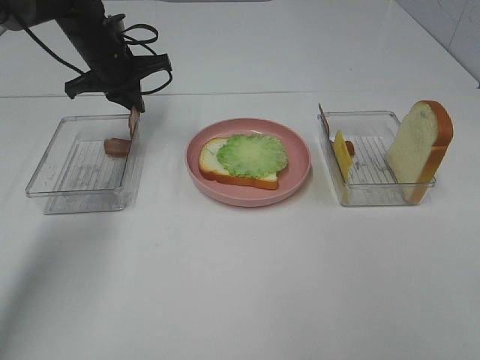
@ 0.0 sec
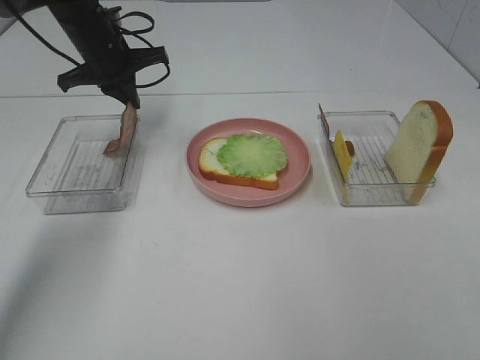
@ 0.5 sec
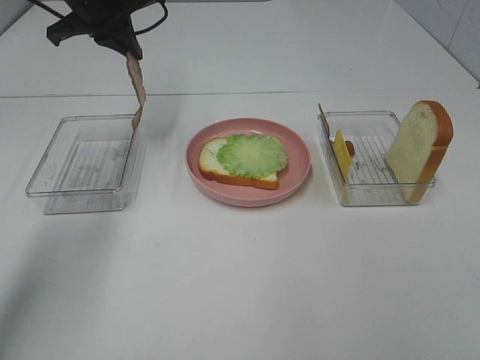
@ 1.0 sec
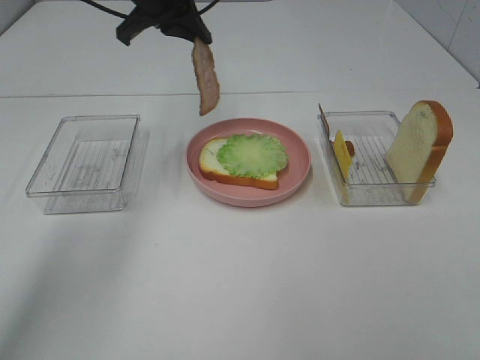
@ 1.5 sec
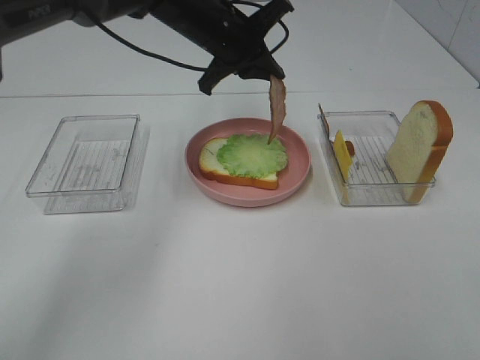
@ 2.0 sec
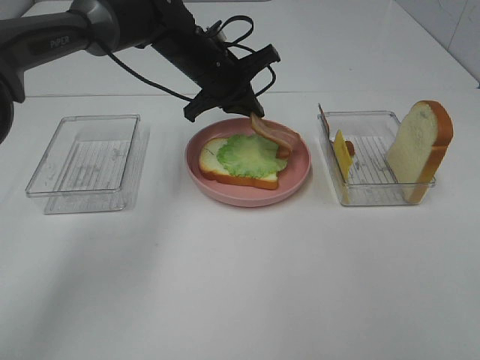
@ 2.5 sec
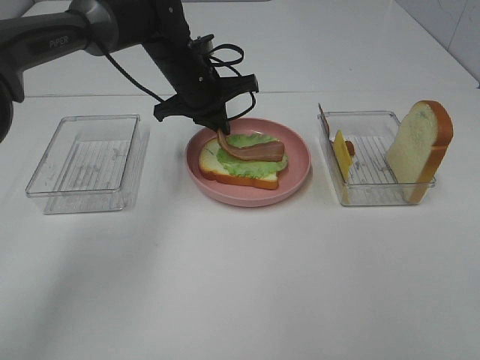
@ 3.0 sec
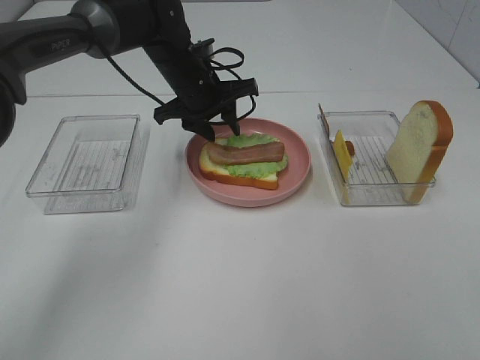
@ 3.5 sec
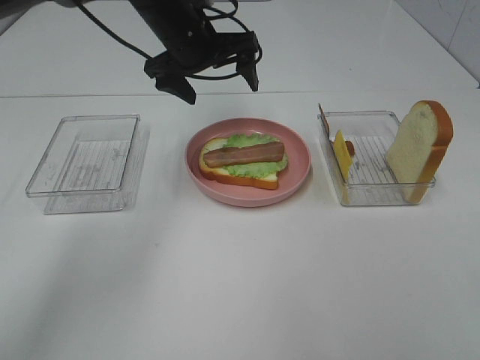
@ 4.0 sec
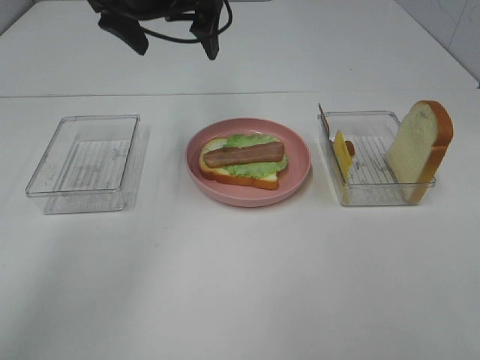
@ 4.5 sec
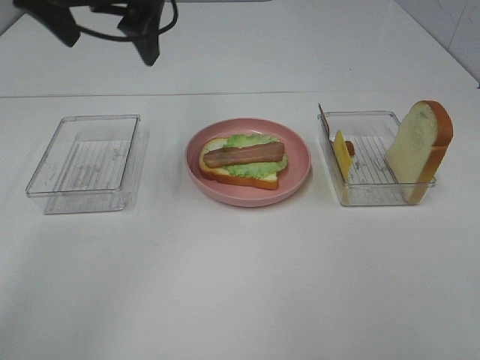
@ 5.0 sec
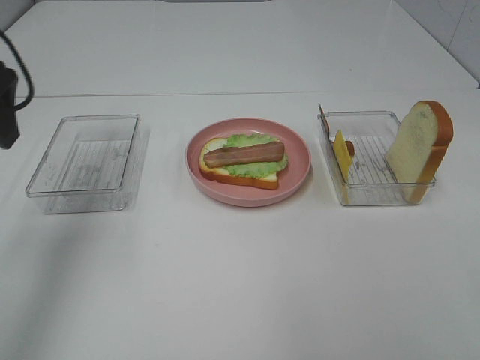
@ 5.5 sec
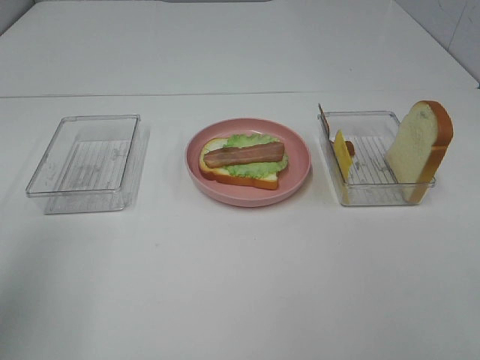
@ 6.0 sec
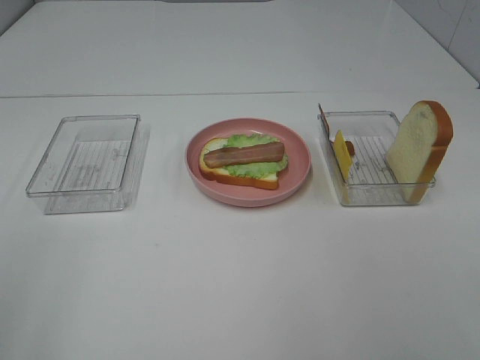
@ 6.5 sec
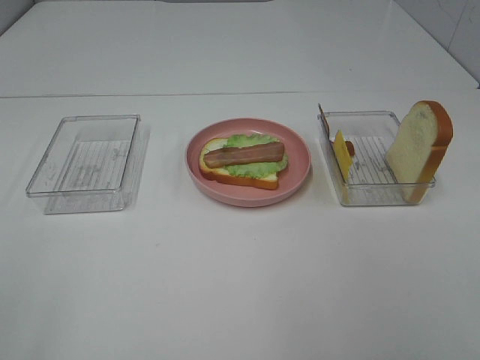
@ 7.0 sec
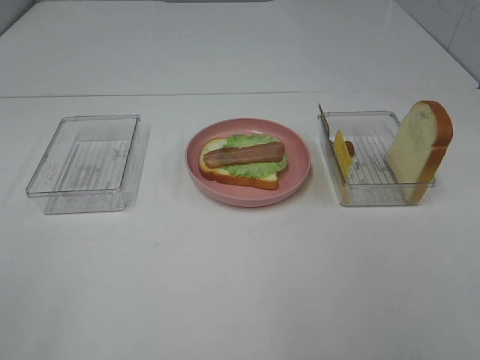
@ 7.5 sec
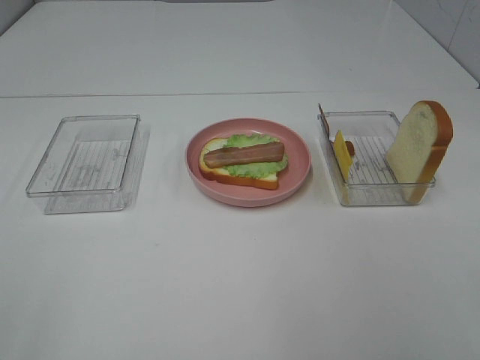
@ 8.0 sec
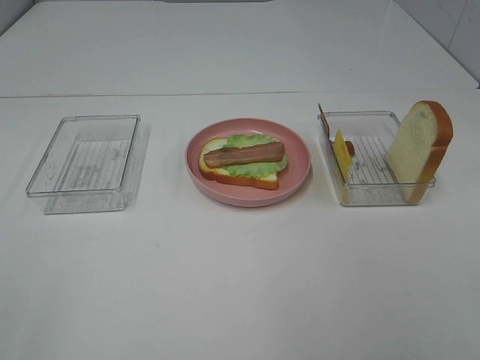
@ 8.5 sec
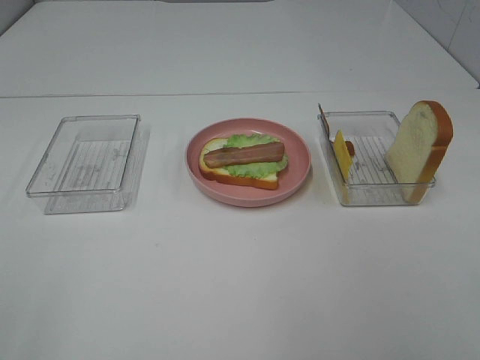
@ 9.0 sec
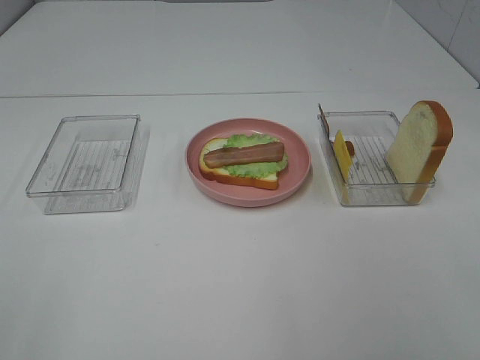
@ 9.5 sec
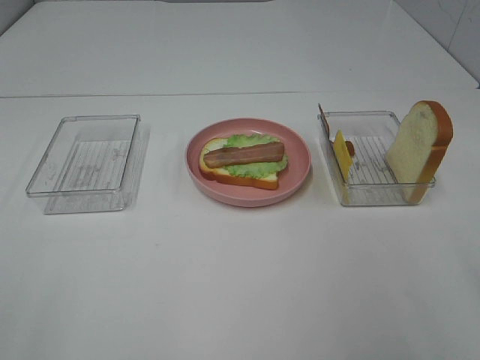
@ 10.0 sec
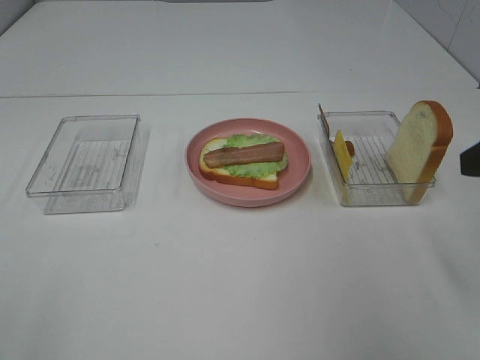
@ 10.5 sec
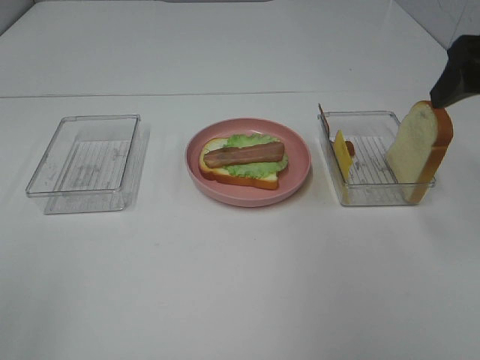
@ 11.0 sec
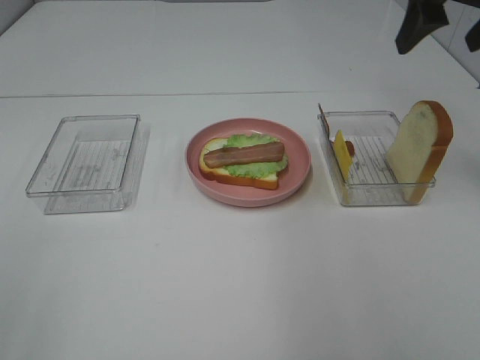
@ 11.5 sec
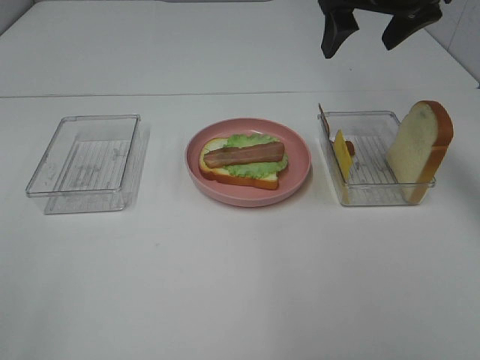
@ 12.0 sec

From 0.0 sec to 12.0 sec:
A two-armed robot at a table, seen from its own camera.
Task of the whole recording: Make sandwiches.
Step, from 0.5 sec to 3.5 sec: Left hand:place bacon on lettuce slice.
From 0.0 sec to 2.0 sec: The left gripper is displaced to the right by roughly 15 cm.
From 2.0 sec to 4.0 sec: The left gripper goes downward and returns, roughly 5 cm each way, and opens its fingers.
From 4.0 sec to 6.0 sec: The left gripper is displaced backward and to the left by approximately 40 cm.
From 10.0 sec to 12.0 sec: The right gripper is displaced forward by about 35 cm.

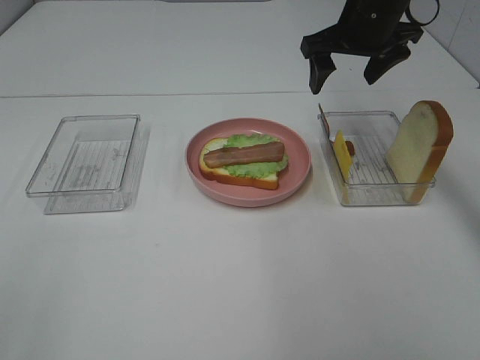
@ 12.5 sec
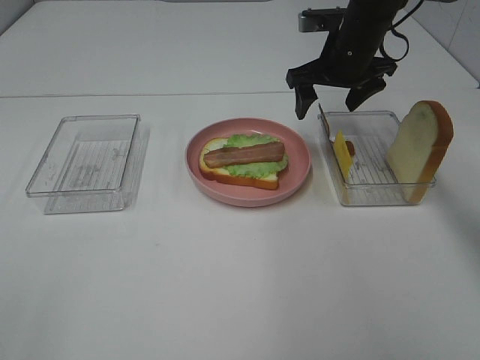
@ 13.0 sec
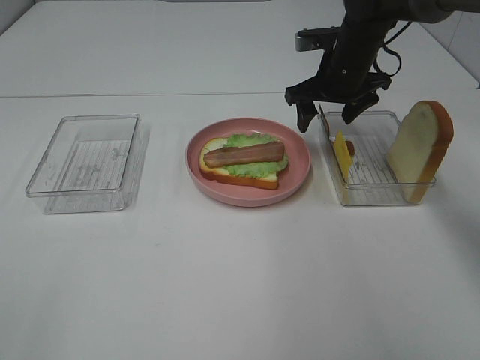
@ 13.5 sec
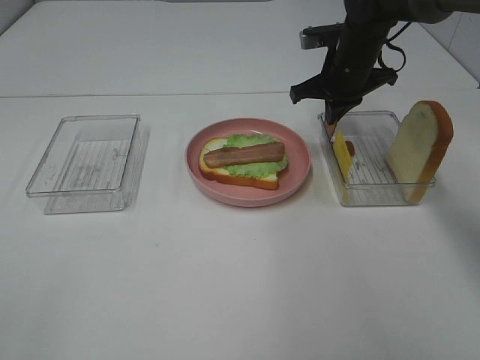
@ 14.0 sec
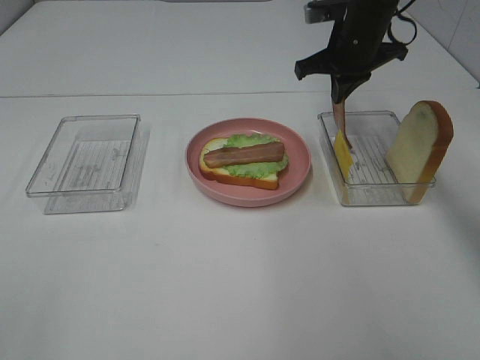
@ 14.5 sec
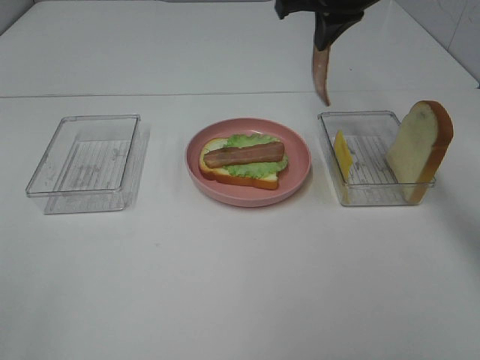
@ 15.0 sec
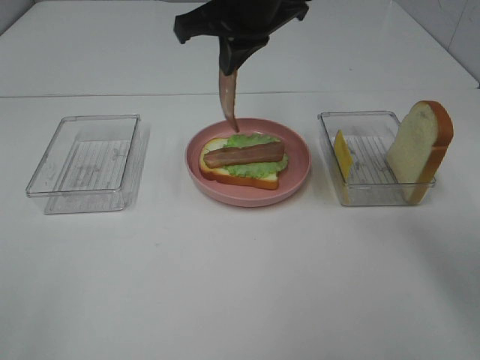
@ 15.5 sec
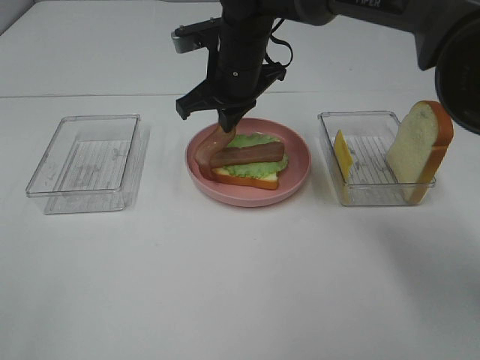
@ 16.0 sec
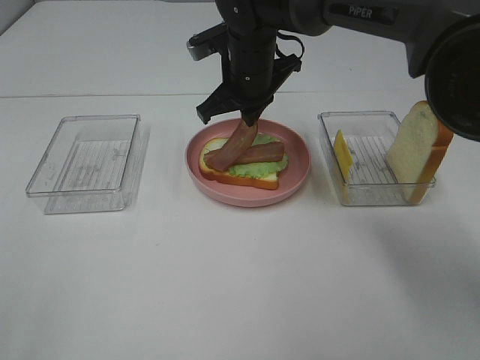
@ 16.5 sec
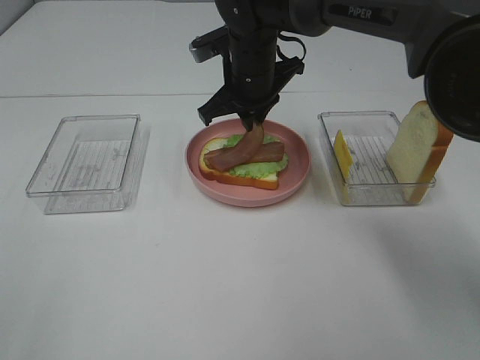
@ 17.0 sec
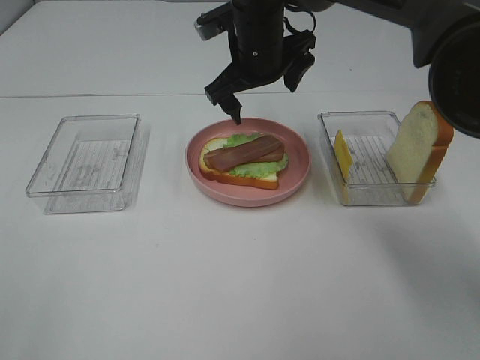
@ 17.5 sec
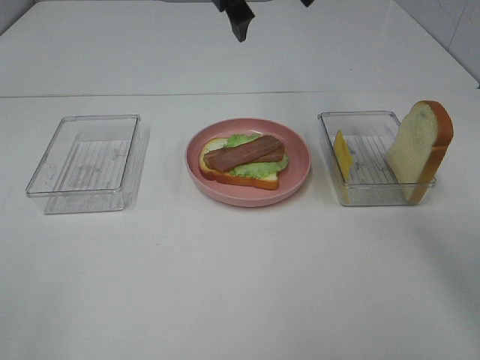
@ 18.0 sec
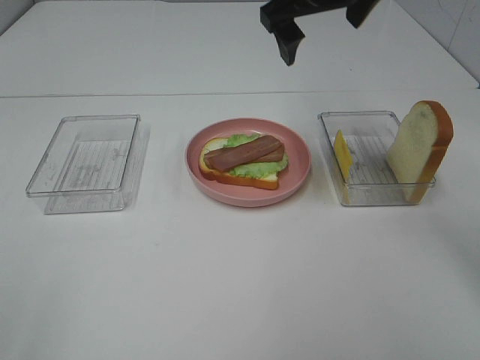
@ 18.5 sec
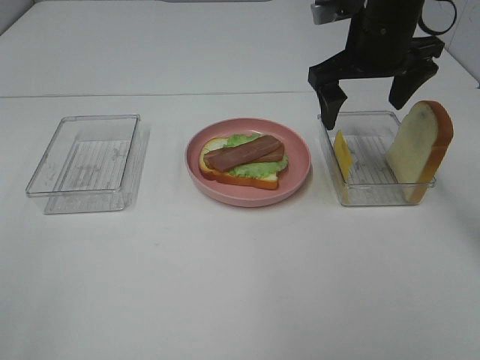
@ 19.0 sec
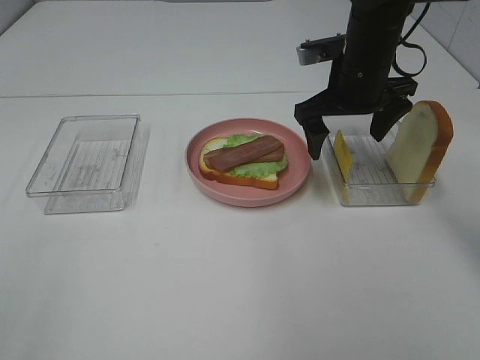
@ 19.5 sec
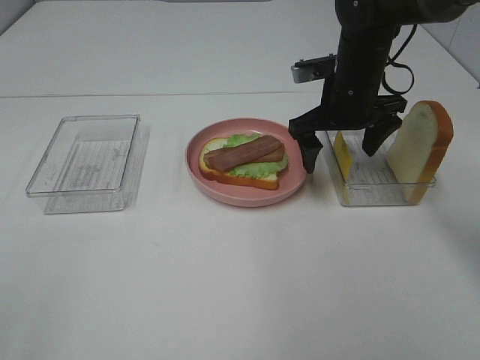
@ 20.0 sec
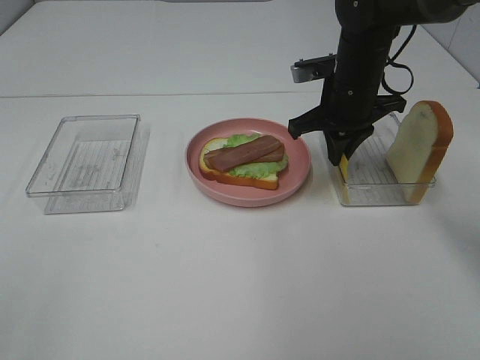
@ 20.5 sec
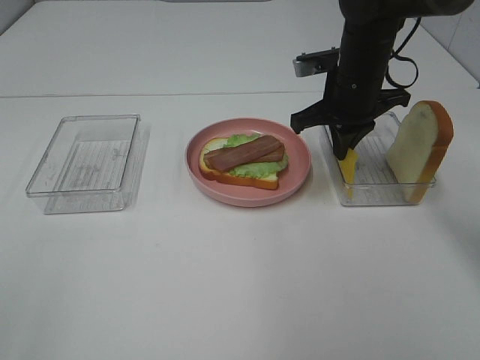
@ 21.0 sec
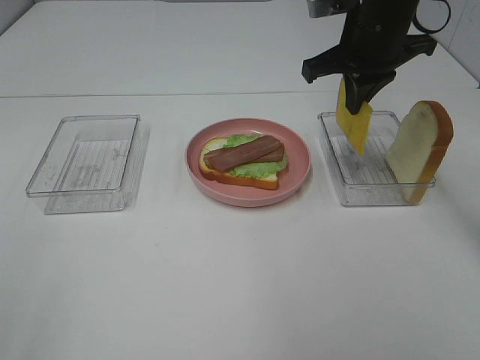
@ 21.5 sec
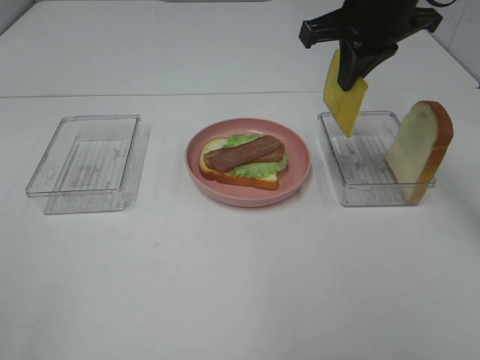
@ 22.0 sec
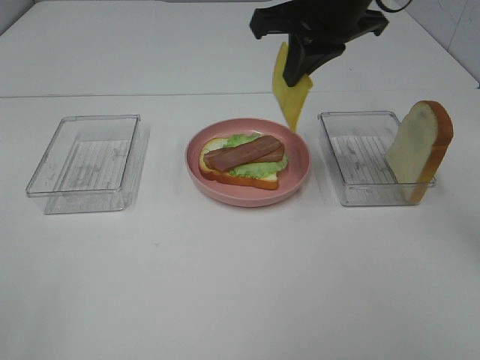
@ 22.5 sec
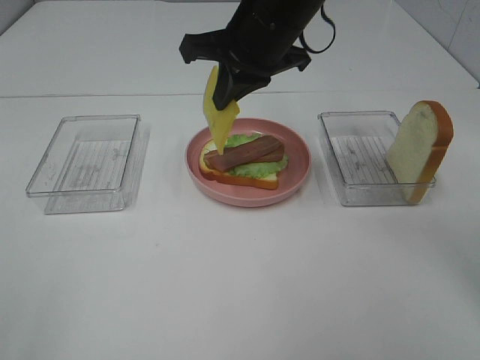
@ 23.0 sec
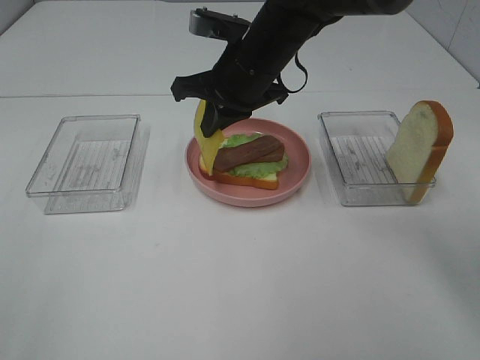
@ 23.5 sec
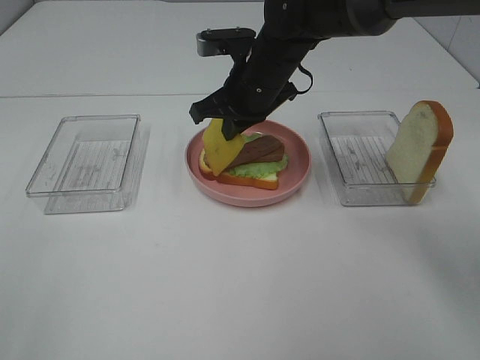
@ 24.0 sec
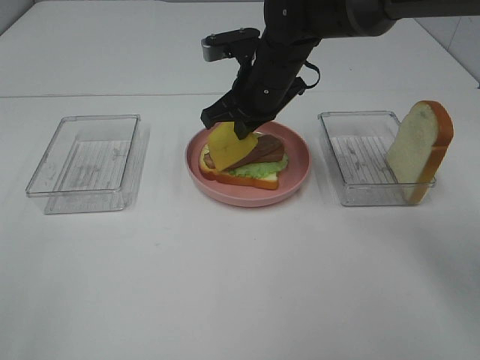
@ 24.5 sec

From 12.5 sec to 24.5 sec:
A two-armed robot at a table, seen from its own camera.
Task of the whole recording: Make sandwiches.
Step, from 14.5 sec to 17.0 sec: Right hand:place bacon on bacon.
Step, from 17.5 sec to 20.5 sec: Right hand:grab the cheese slice.
From 12.5 sec to 14.5 sec: The right gripper goes downward and returns, approximately 10 cm each way, and closes.
From 14.5 sec to 16.5 sec: The right gripper moves to the left, some 15 cm.
From 16.5 sec to 18.5 sec: The right gripper goes some 15 cm upward and to the right, and opens its fingers.
From 18.5 sec to 20.5 sec: The right gripper moves downward, about 15 cm, and closes its fingers.
From 20.5 sec to 22.5 sec: The right gripper heads upward, covering some 15 cm.
From 22.5 sec to 24.5 sec: The right gripper heads downward and to the left, covering about 15 cm.

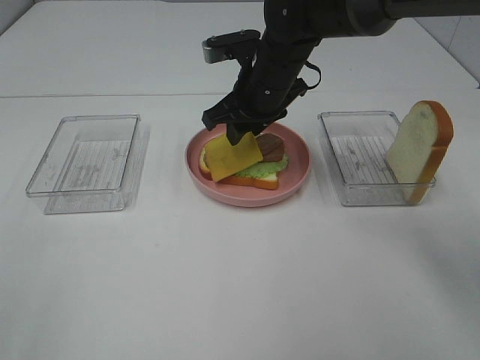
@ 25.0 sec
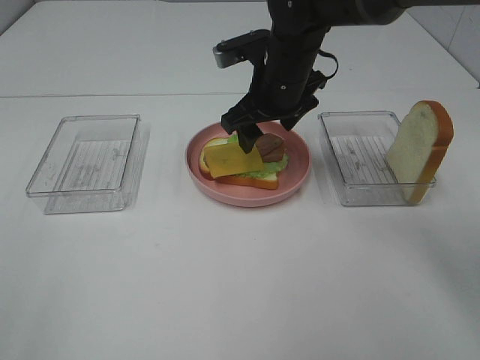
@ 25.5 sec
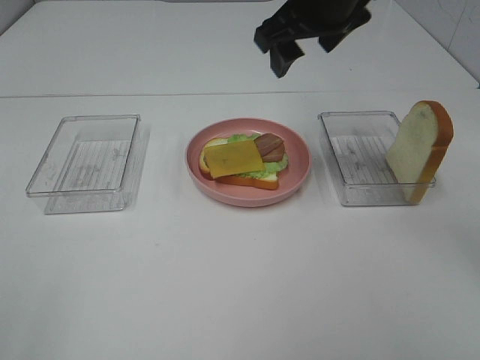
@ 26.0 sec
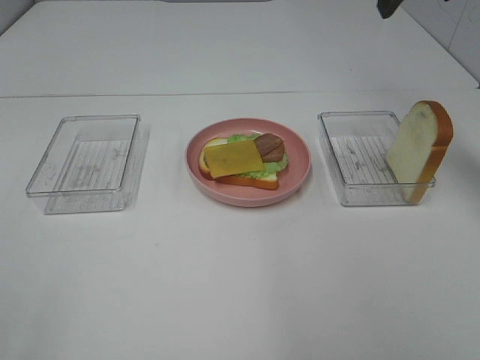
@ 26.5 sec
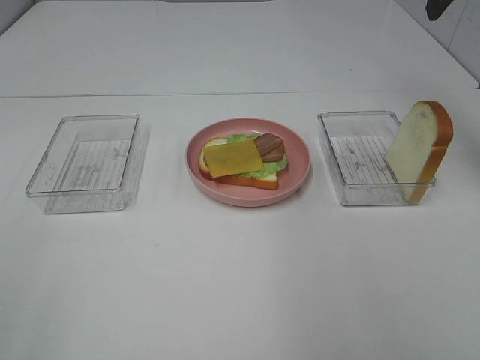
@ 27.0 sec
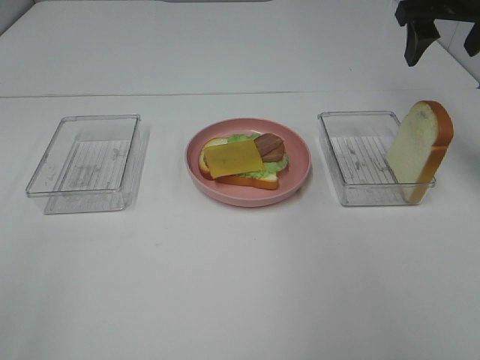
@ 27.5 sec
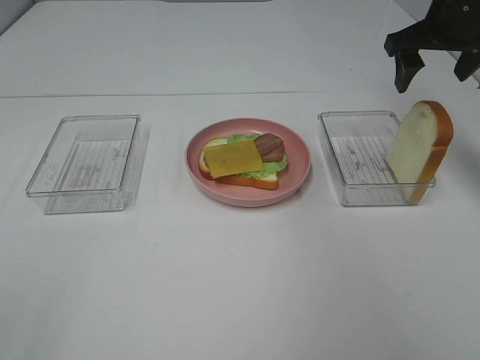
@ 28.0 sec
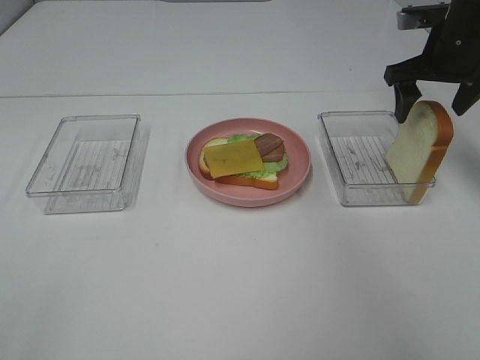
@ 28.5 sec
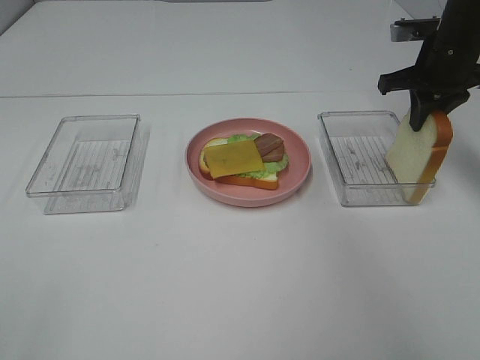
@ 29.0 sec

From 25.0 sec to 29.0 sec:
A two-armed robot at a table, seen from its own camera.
Task of the whole recording: Make sandwiches.
From 25.0 sec to 27.0 sec: The right gripper moves to the right and upward, some 30 cm.
From 27.0 sec to 29.0 sec: The right gripper is displaced downward by about 15 cm, and closes its fingers.
